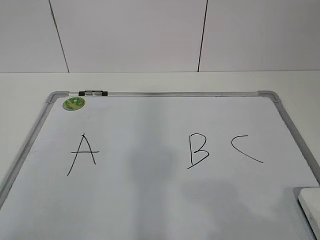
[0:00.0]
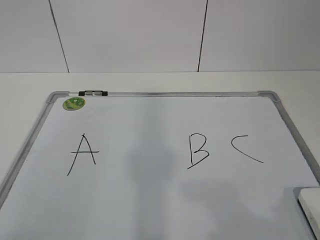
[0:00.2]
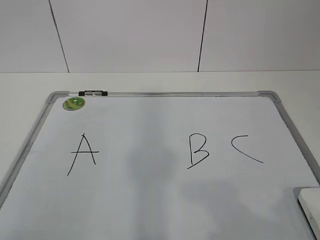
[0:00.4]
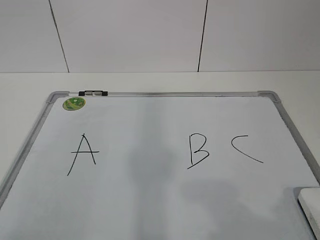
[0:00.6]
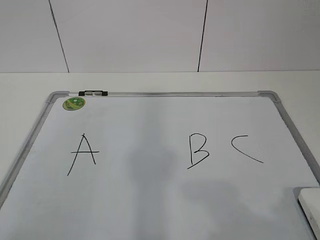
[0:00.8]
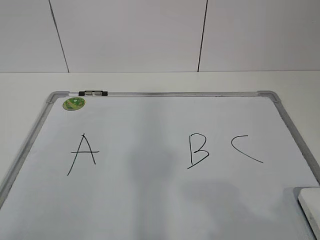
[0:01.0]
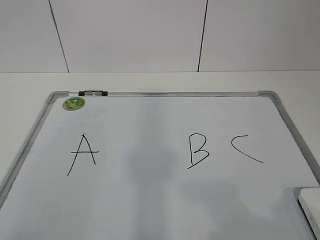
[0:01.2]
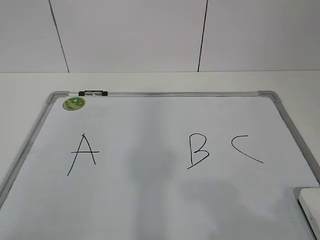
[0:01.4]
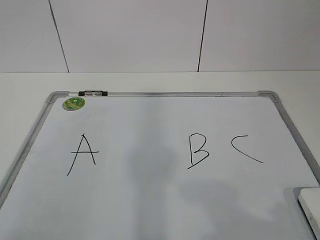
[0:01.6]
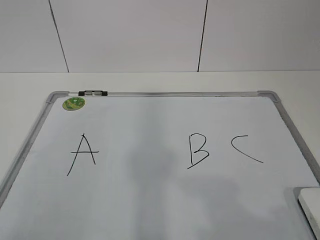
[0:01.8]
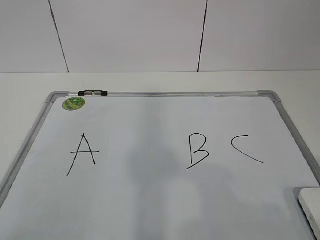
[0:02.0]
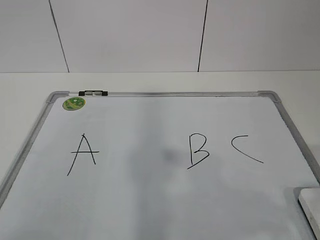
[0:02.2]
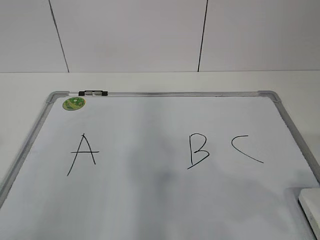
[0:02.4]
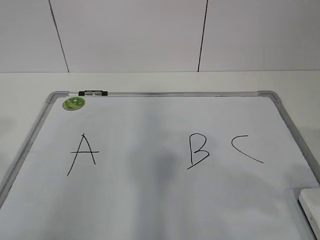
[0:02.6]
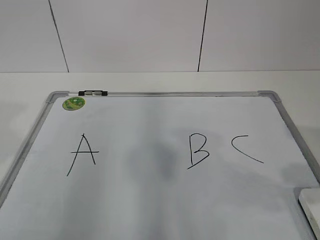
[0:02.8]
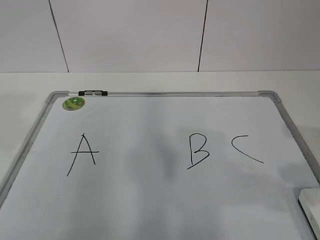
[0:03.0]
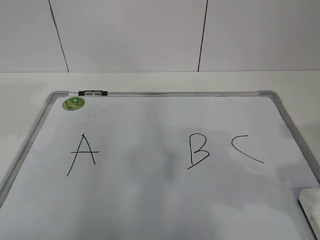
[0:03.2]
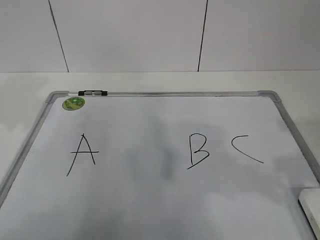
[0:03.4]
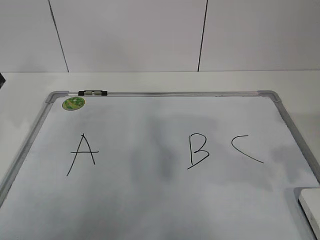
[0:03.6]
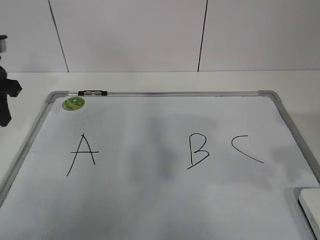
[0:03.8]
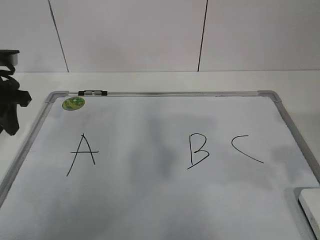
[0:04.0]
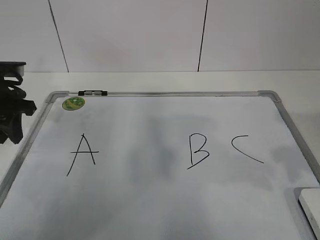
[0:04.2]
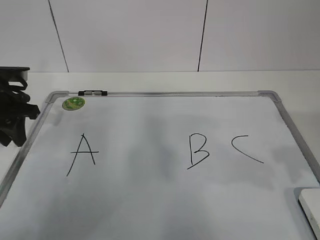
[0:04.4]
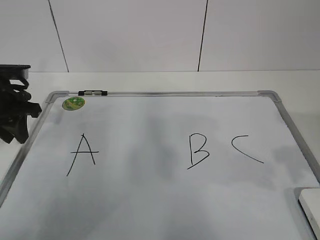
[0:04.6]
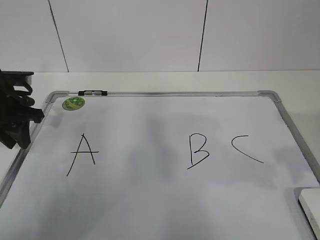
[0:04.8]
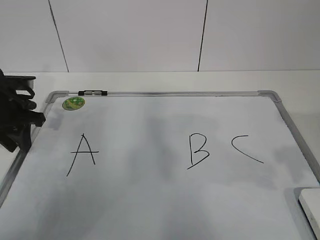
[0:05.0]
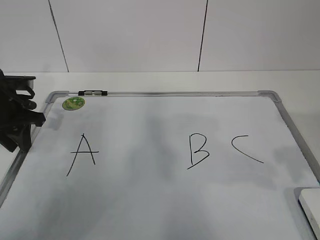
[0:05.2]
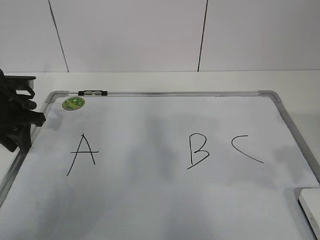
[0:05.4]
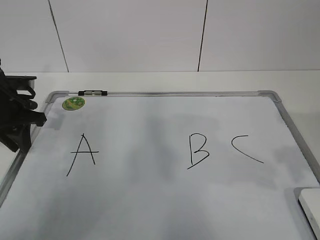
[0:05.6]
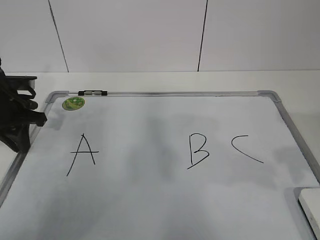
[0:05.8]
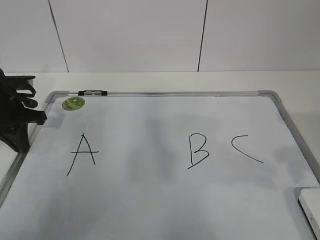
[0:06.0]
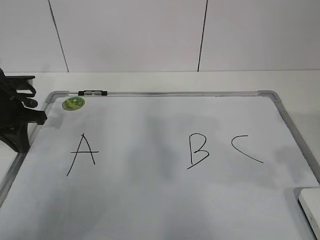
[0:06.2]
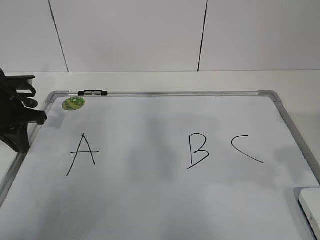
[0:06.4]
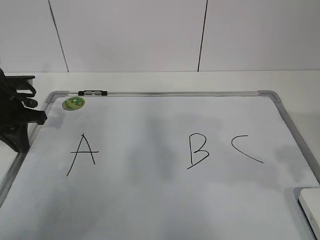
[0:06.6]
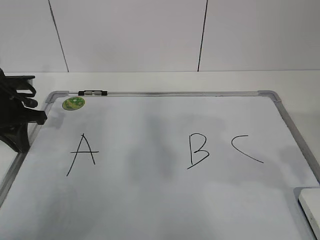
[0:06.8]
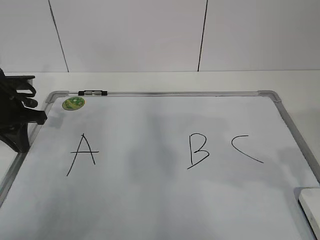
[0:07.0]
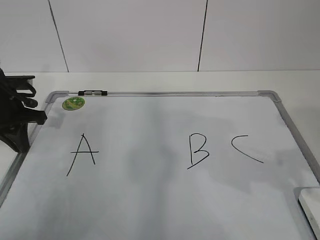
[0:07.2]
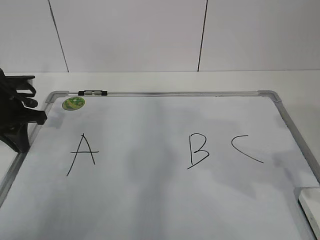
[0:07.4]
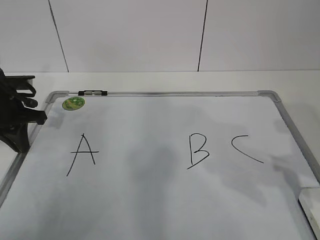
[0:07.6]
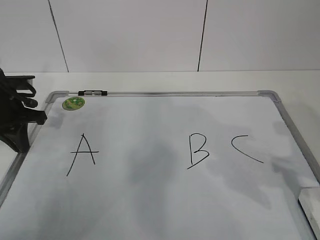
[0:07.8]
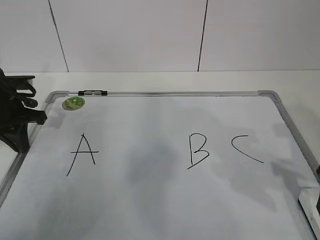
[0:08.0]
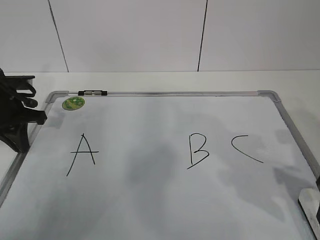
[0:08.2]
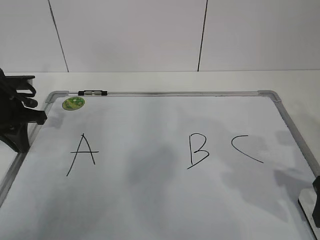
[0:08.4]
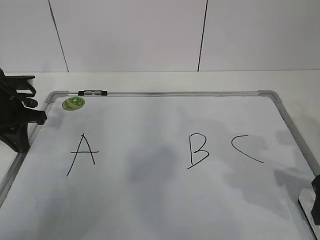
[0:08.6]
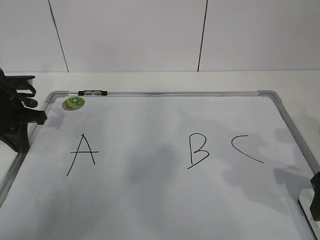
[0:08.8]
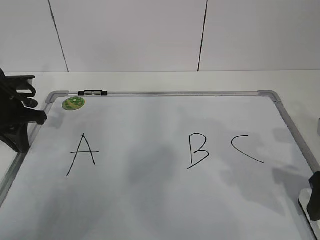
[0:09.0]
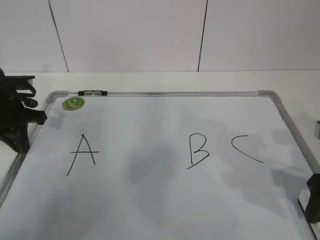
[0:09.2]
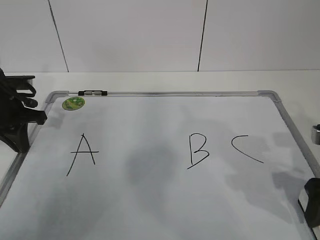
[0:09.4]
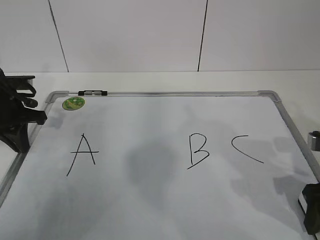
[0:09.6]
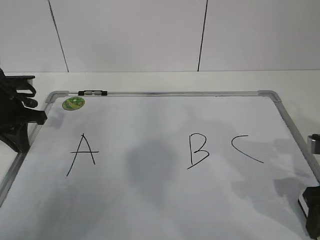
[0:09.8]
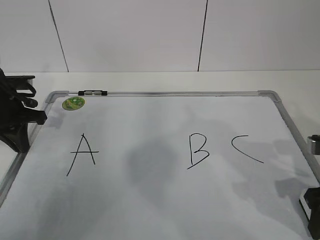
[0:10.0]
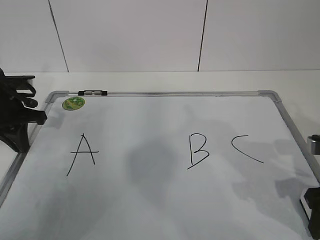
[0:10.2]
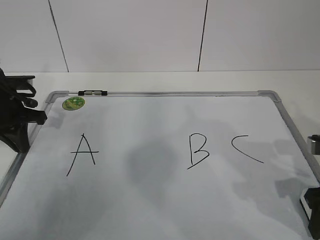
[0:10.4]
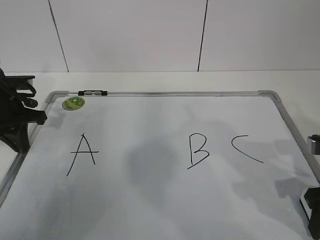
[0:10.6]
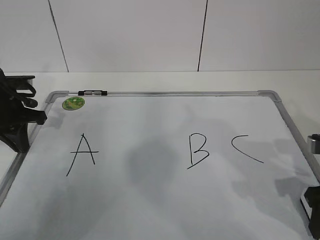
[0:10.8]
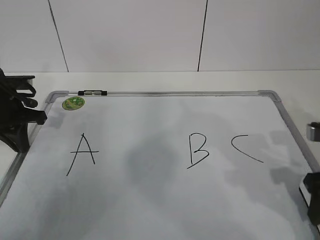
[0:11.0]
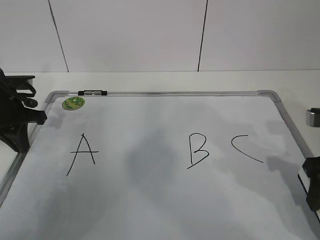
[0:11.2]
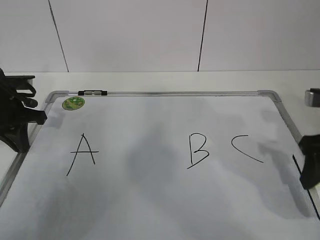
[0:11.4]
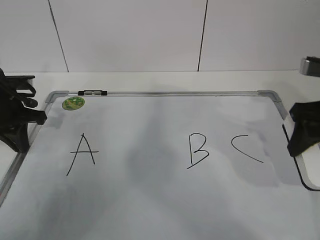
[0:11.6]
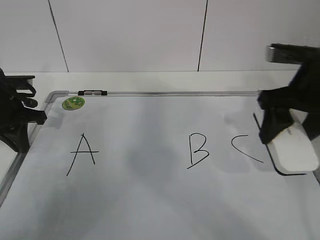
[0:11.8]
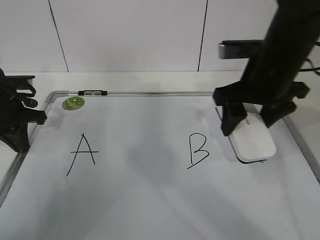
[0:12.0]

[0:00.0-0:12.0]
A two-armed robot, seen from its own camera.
Task of the whole recording: pick up the eraser on the blackboard and erase the letter "B".
Step, 0:00.0 to 0:04.8: Hold the drawing board steady with your left hand.
0:01.6 to 0:03.0: The grippers both shift forward by approximately 15 cm.
0:03.0 to 0:04.4: The left gripper travels forward and downward by approximately 25 cm.
0:04.4 to 0:06.0: The left gripper closes up.
0:07.6 to 0:09.0: The grippers make only small movements.
0:09.0 to 0:10.4: The right gripper closes up.
0:10.4 to 0:12.0: The right gripper is displaced forward, to the left and upward by about 20 cm.

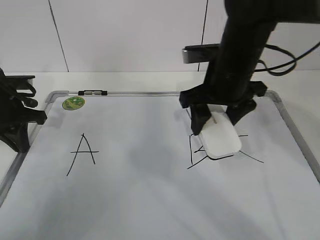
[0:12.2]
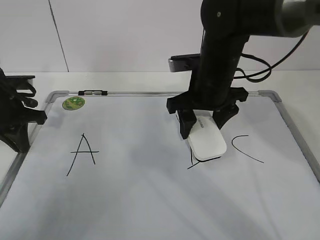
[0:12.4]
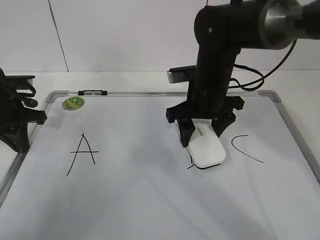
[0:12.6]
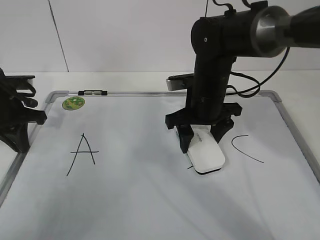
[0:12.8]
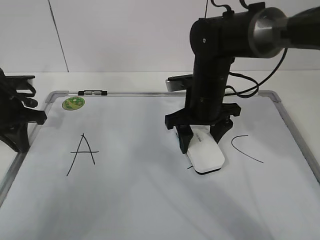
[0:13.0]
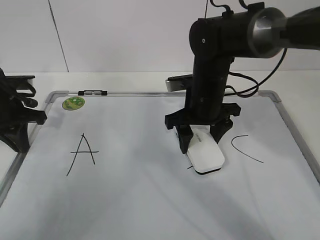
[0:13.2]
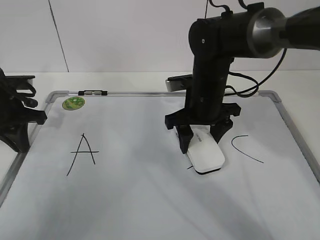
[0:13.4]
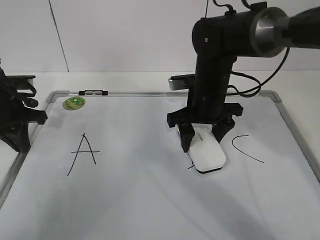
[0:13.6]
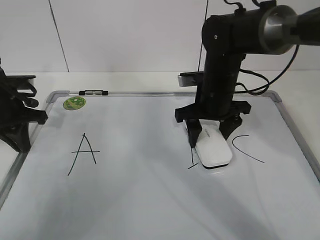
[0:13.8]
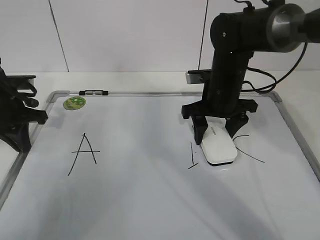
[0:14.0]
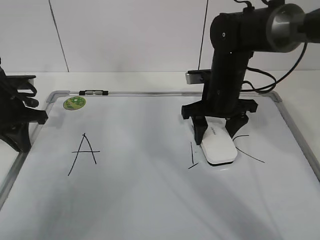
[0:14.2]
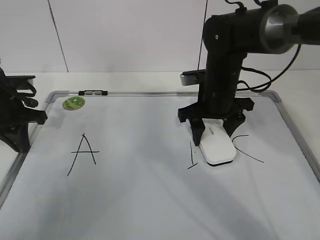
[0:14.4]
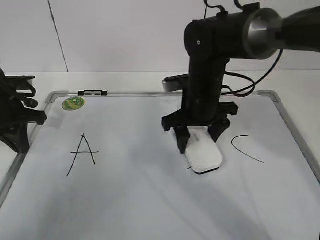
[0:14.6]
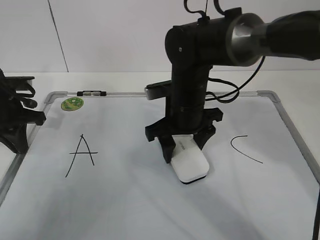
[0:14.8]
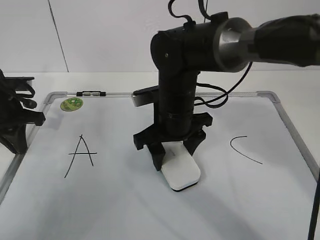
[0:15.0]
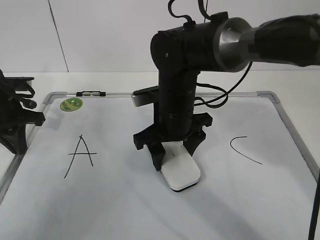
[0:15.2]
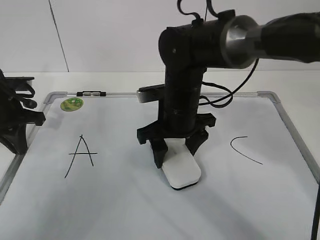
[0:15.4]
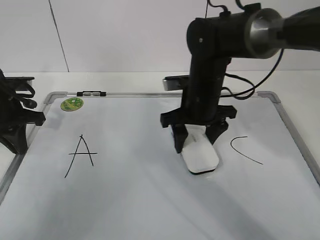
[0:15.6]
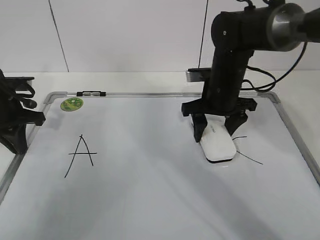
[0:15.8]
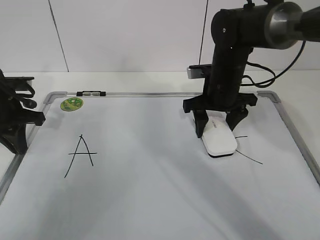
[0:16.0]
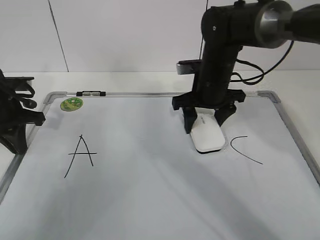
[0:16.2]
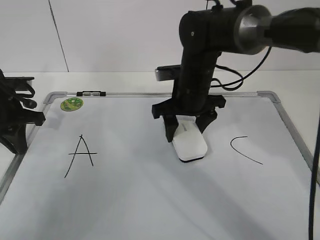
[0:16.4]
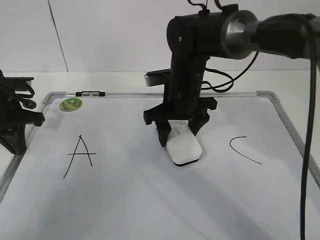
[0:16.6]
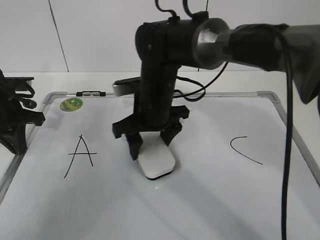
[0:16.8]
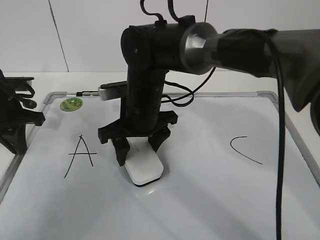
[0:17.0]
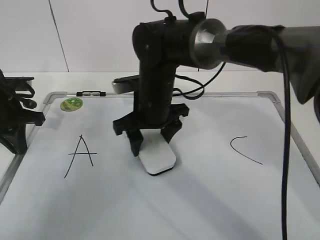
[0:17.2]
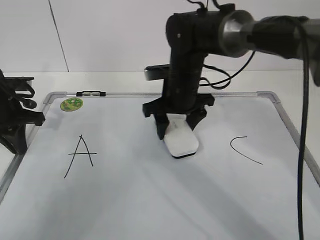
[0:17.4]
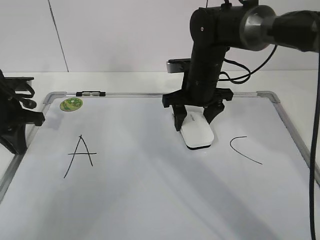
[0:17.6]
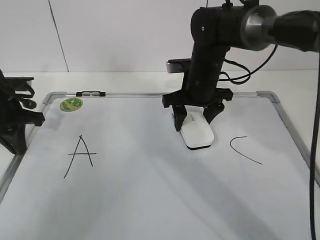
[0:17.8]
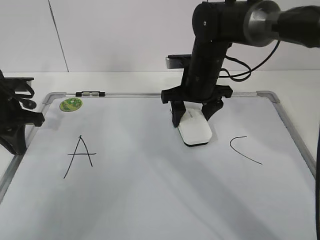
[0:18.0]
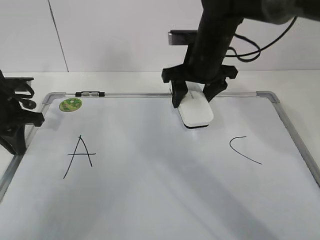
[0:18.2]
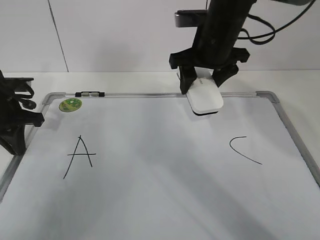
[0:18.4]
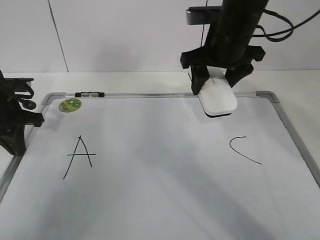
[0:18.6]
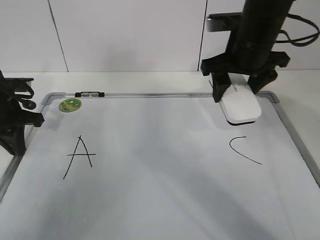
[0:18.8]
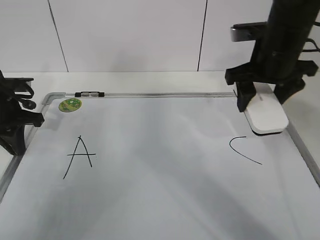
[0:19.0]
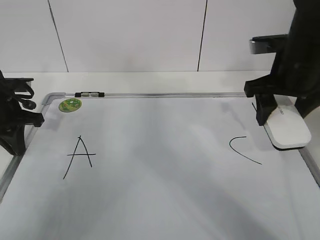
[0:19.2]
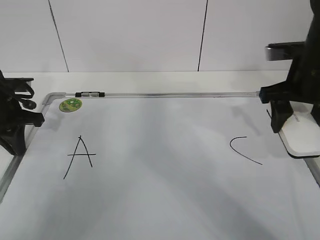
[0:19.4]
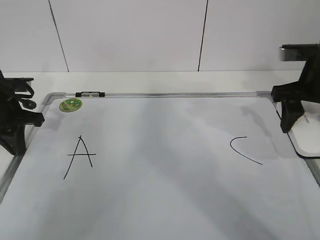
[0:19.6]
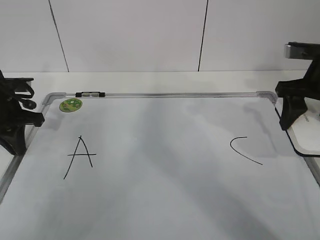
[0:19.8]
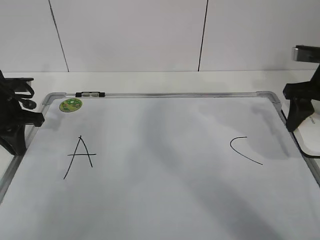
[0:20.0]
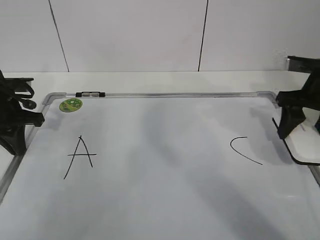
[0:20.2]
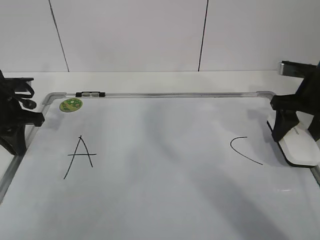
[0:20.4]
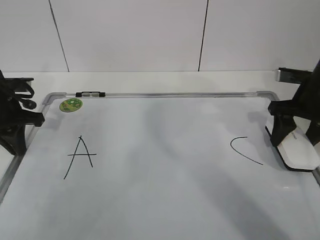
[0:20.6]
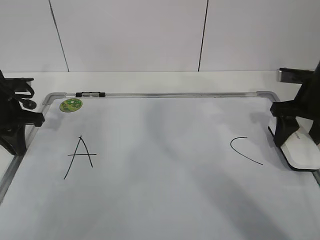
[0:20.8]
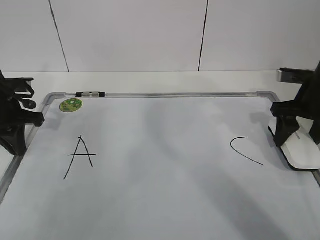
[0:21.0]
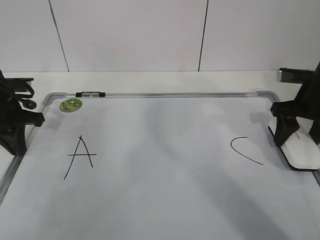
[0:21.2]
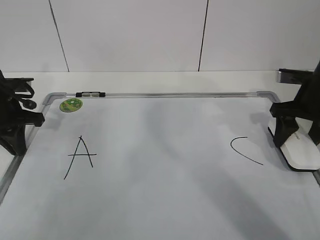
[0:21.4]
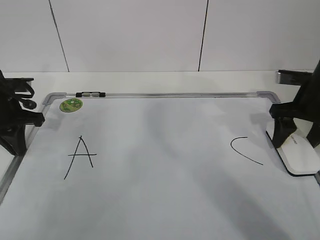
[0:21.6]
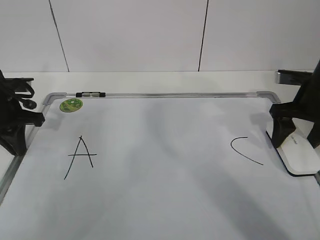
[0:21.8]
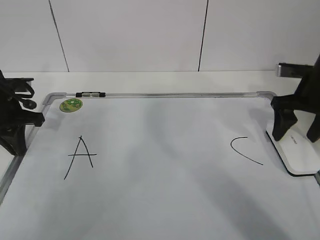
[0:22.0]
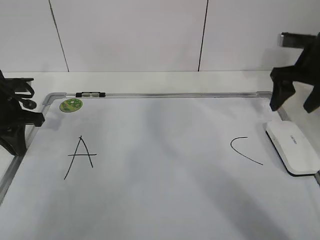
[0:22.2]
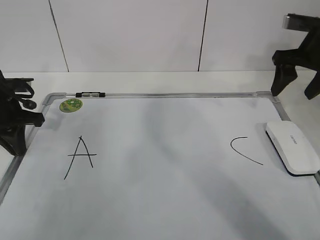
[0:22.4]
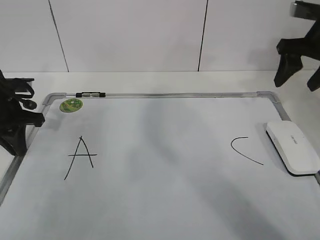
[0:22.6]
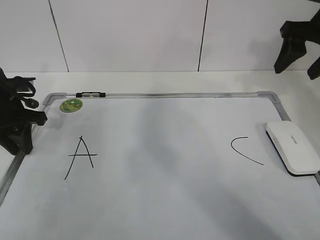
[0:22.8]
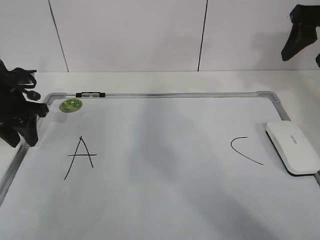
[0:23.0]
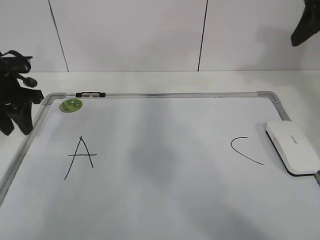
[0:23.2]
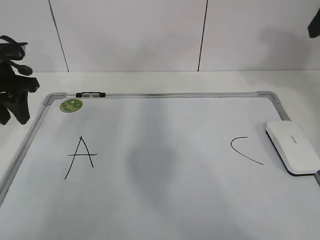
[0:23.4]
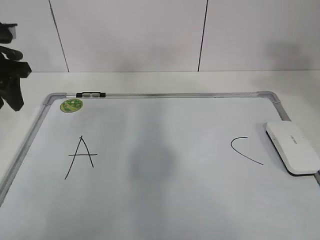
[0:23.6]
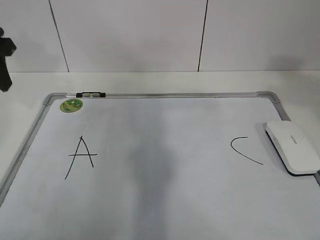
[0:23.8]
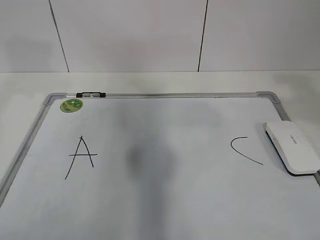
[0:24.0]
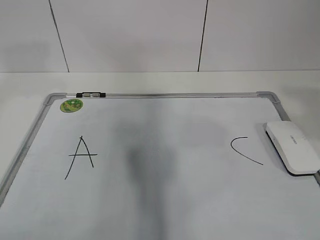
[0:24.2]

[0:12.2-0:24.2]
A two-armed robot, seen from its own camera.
Task of the whole recording: pick up the eraser on the blackboard and erase the letter "B".
Step, 0:12.2 to 0:14.6: Erase the letter B with your right hand.
Step, 0:15.0 to 0:18.0: Put down the eraser with your right hand.
0:12.2 to 0:13.8: The right gripper heads downward, covering approximately 10 cm.
0:13.8 to 0:15.2: The right gripper travels to the left by some 10 cm.
0:15.2 to 0:16.6: The right gripper moves about 10 cm to the right and comes back.
0:16.6 to 0:18.2: The right gripper moves upward, about 5 cm.
0:18.2 to 0:19.8: The right gripper is displaced to the right and backward by roughly 20 cm.
0:19.8 to 0:21.2: The right gripper travels downward by some 5 cm.
0:21.2 to 0:22.6: The right gripper travels upward by some 10 cm, and opens its fingers.
0:22.6 to 0:24.2: The left gripper moves upward, roughly 20 cm, and opens, while the right gripper is displaced backward and upward by some 30 cm.
